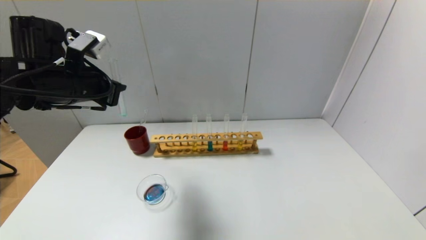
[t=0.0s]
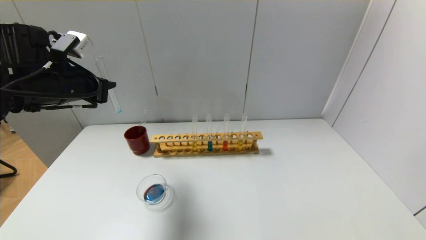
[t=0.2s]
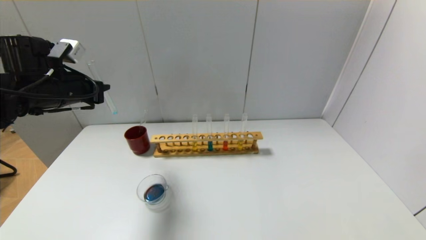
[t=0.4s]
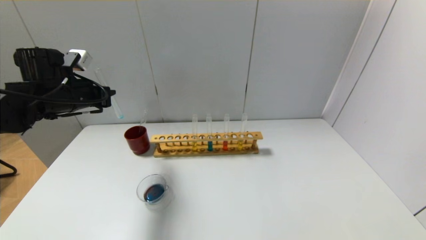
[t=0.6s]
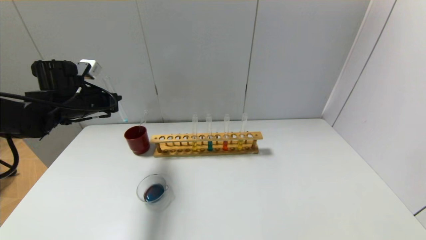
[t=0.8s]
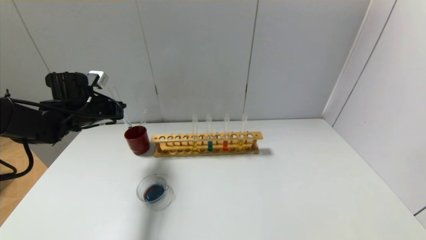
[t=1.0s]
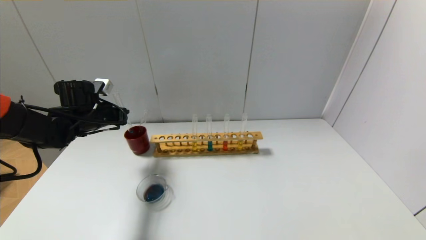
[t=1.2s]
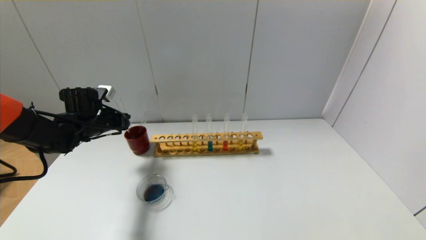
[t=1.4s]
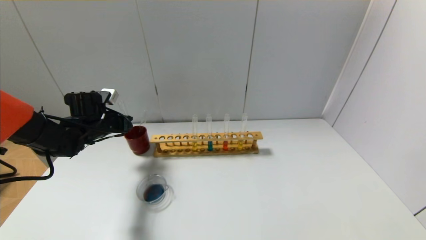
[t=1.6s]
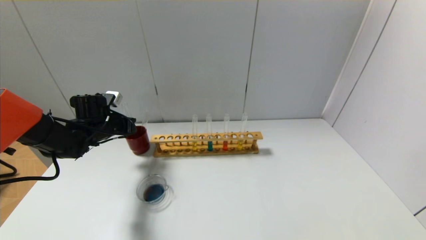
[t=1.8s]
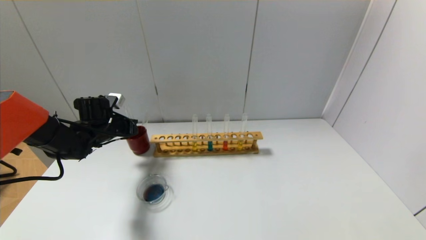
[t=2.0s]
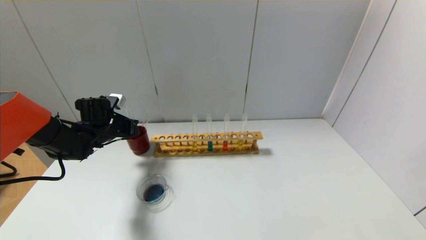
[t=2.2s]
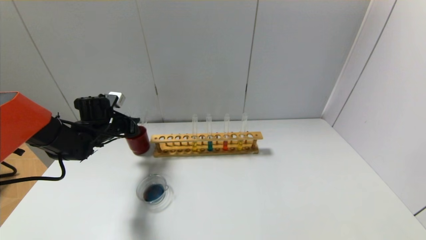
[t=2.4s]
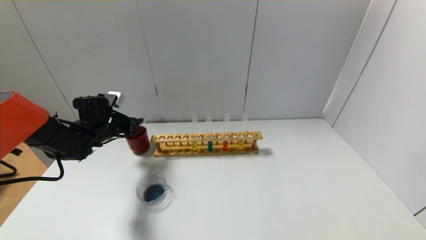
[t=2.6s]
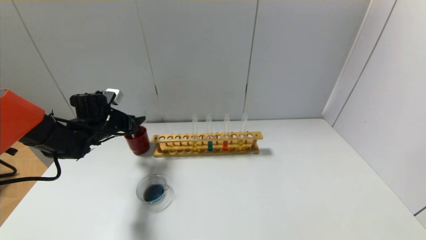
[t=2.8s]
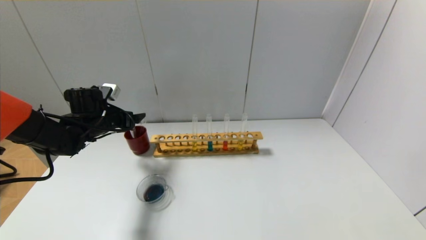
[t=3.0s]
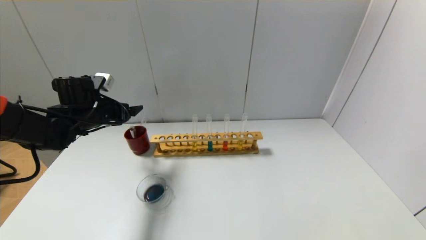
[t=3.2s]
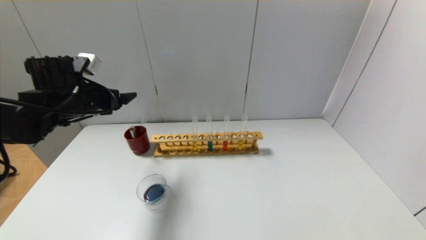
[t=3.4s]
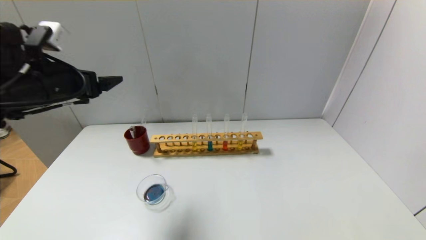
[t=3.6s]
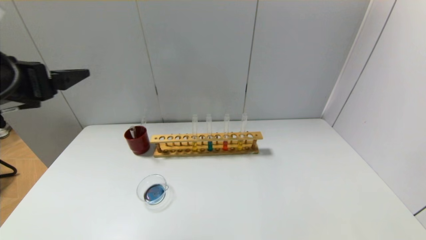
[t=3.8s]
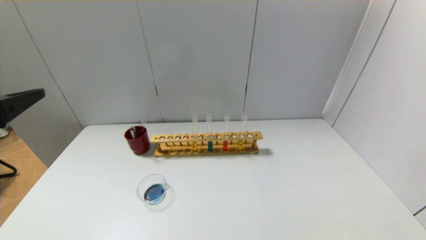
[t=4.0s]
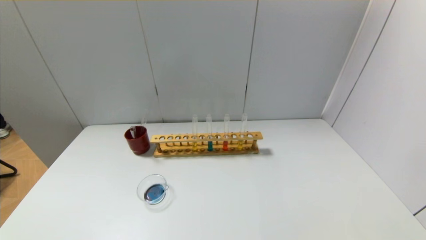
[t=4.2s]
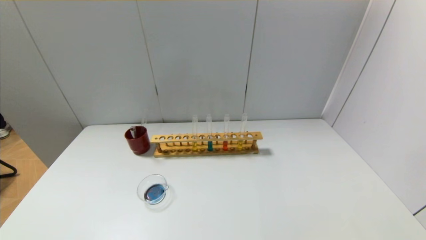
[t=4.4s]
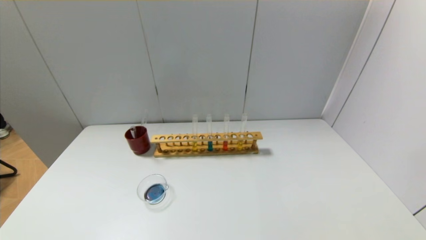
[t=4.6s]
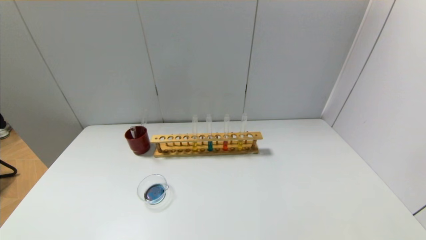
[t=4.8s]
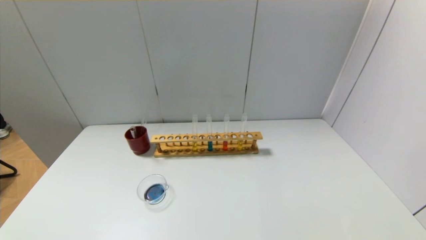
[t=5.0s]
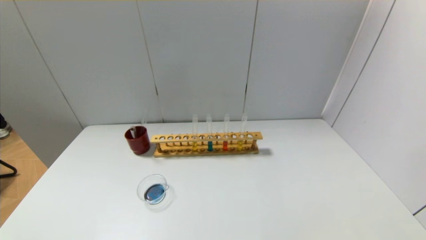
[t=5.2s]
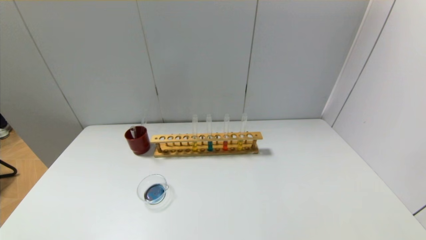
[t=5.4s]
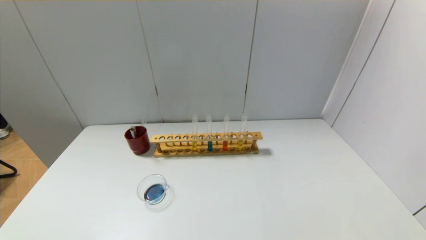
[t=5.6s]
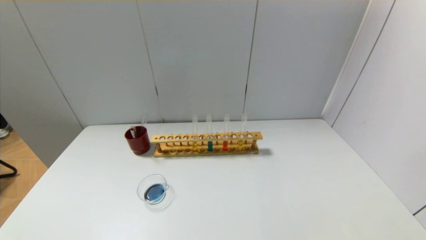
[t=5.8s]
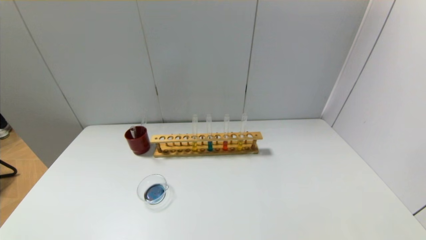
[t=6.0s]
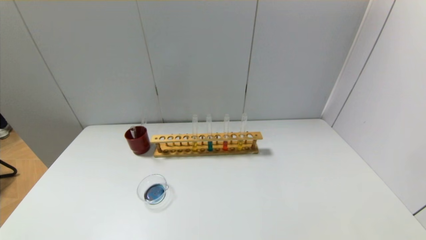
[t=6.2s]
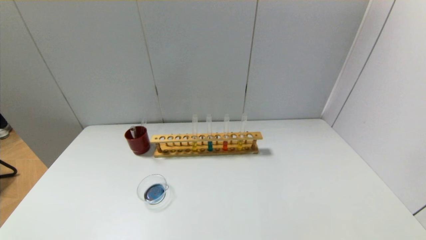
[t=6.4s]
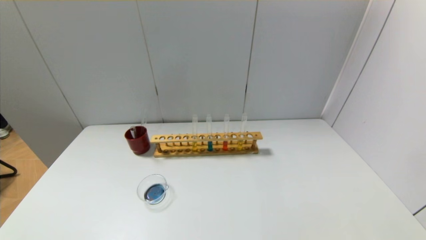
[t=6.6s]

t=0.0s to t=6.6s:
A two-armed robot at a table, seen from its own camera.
Step, t=0.0s to t=2.6s: Place the test tube into the brown cup with the left gripper.
t=0.0s to t=1.6s: The left gripper heads downward and forward, covering some 20 cm.
t=1.6s to t=3.2s: The left gripper opens its fingers.
t=3.2s to t=5.0s: The left gripper moves backward, approximately 40 cm.

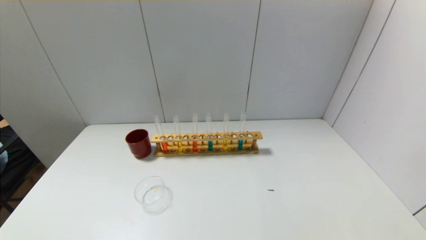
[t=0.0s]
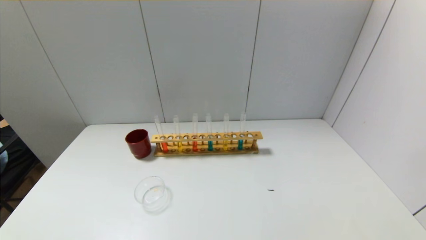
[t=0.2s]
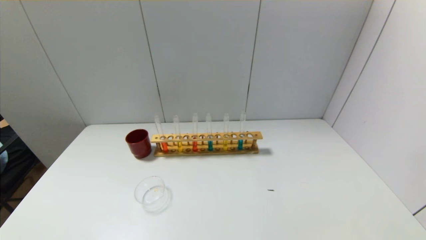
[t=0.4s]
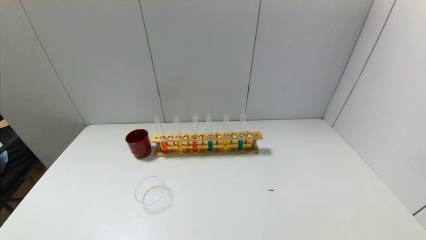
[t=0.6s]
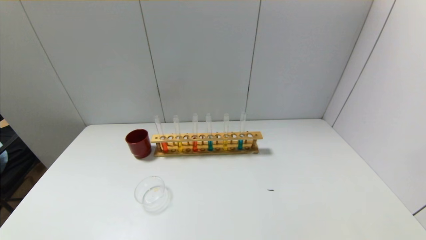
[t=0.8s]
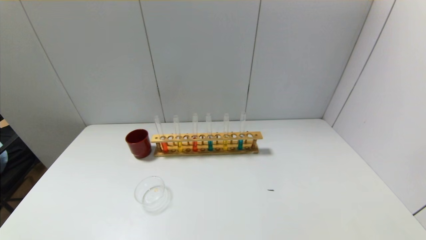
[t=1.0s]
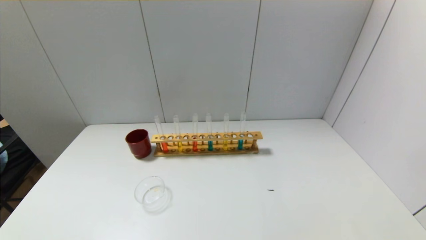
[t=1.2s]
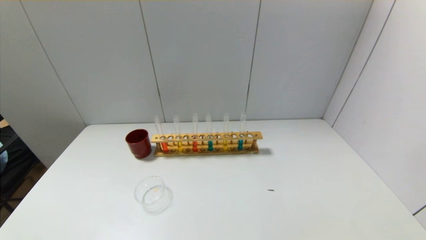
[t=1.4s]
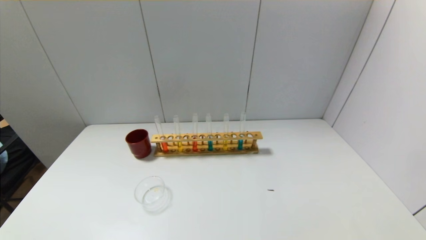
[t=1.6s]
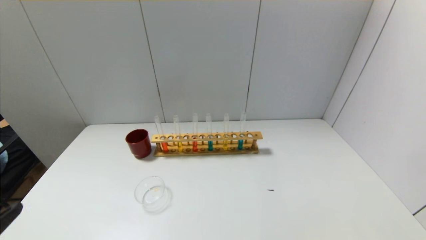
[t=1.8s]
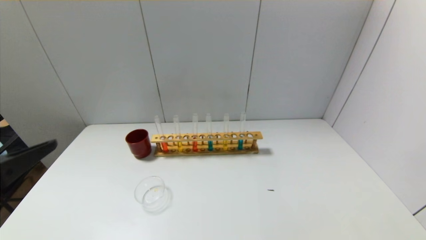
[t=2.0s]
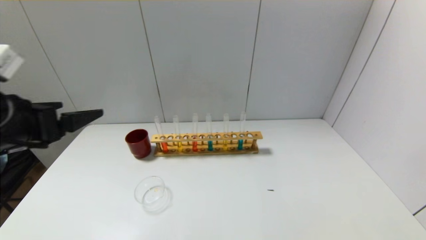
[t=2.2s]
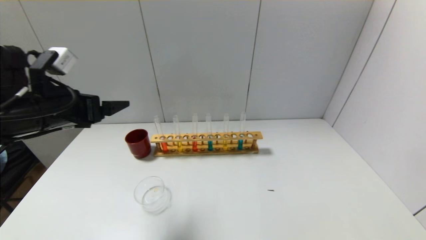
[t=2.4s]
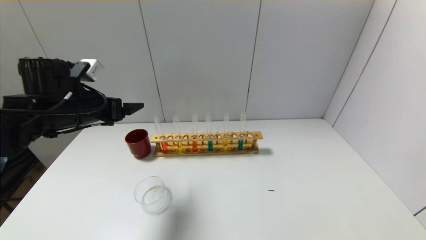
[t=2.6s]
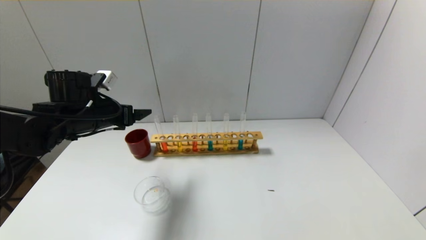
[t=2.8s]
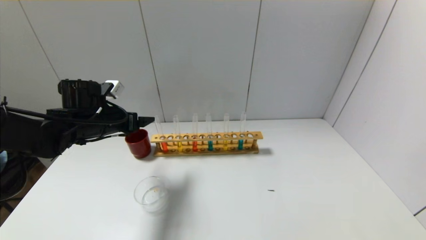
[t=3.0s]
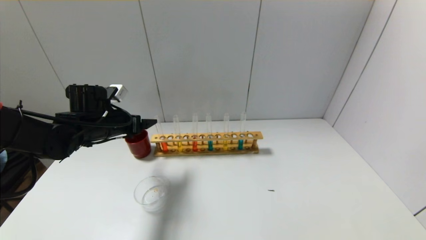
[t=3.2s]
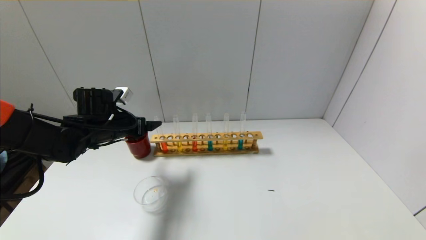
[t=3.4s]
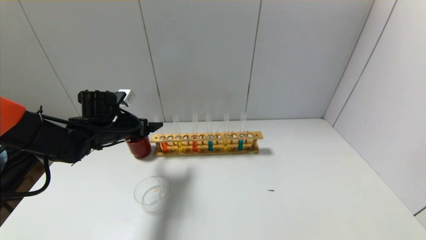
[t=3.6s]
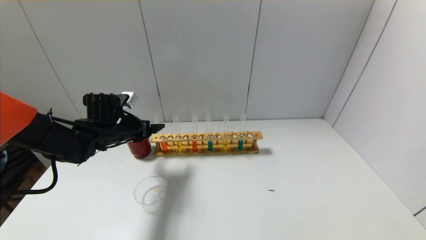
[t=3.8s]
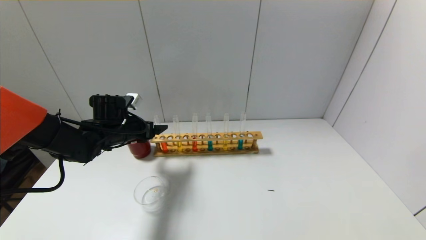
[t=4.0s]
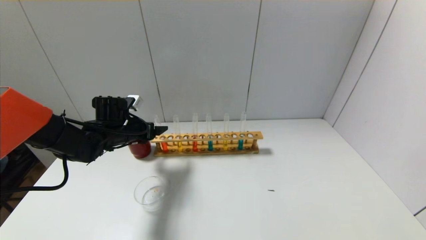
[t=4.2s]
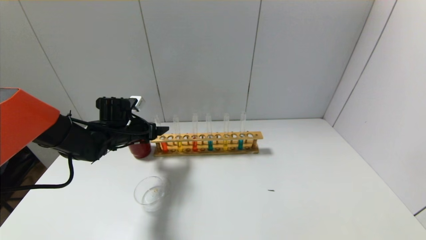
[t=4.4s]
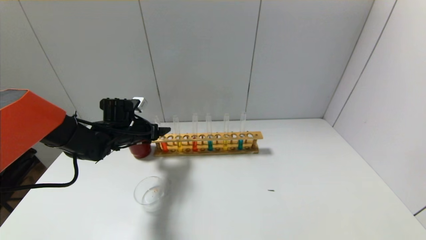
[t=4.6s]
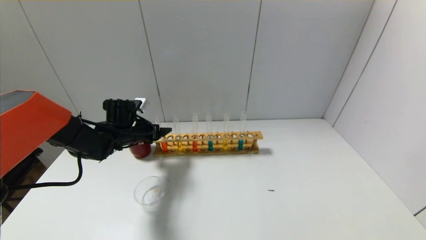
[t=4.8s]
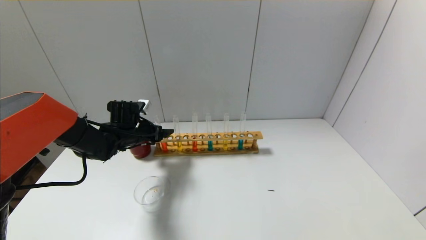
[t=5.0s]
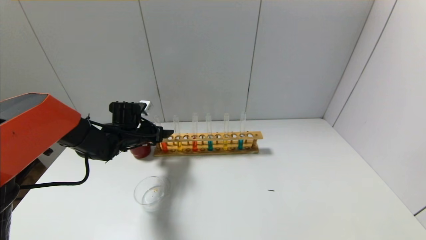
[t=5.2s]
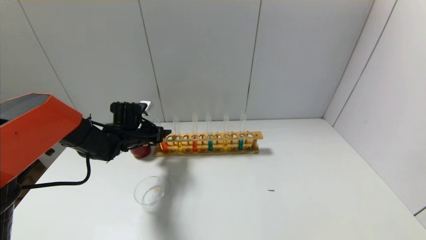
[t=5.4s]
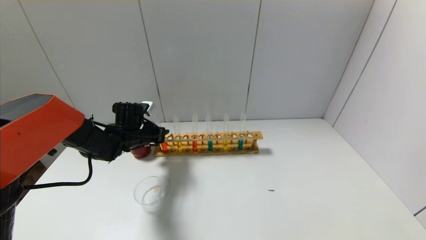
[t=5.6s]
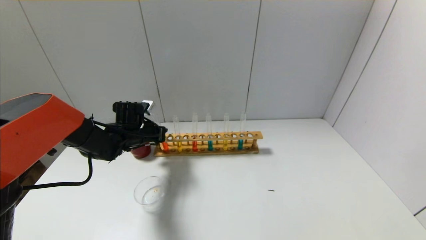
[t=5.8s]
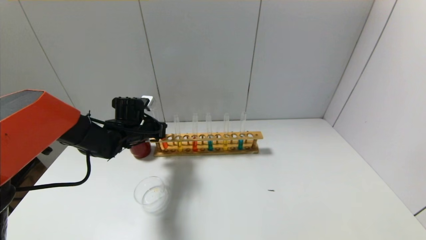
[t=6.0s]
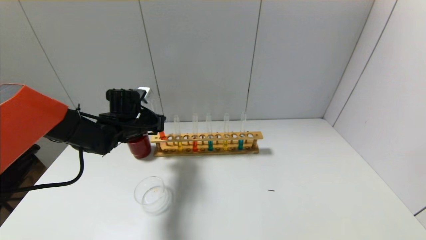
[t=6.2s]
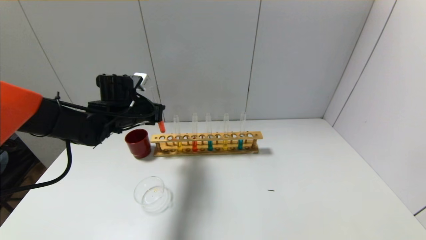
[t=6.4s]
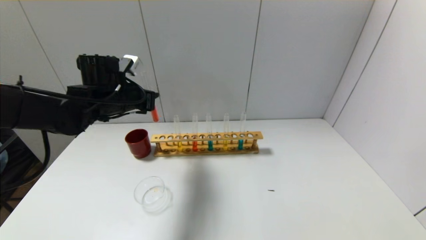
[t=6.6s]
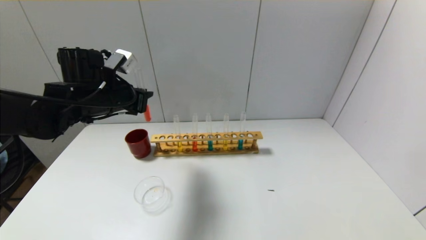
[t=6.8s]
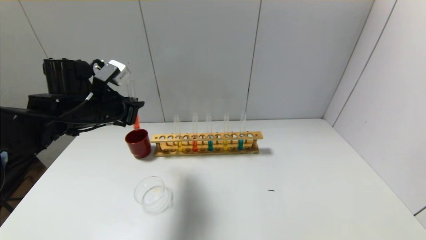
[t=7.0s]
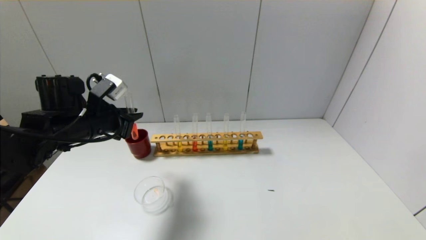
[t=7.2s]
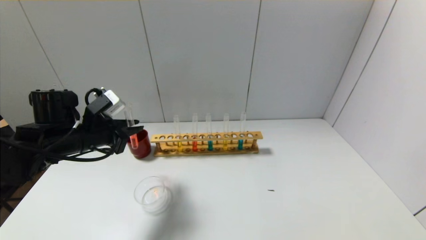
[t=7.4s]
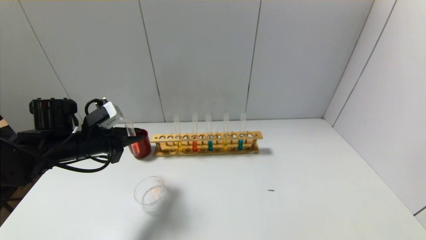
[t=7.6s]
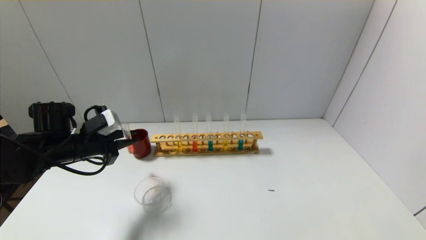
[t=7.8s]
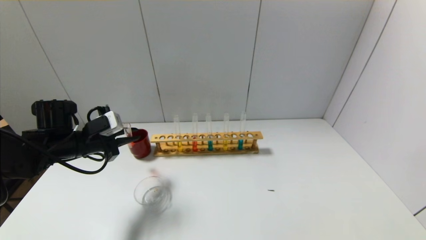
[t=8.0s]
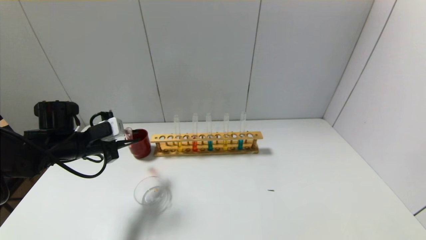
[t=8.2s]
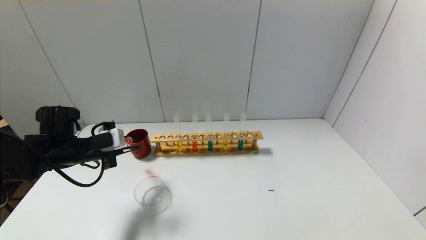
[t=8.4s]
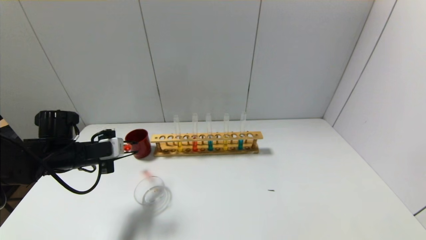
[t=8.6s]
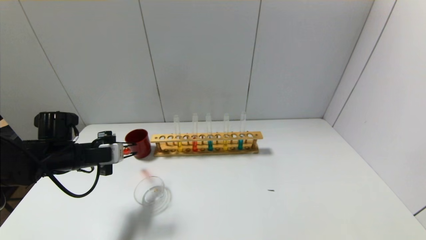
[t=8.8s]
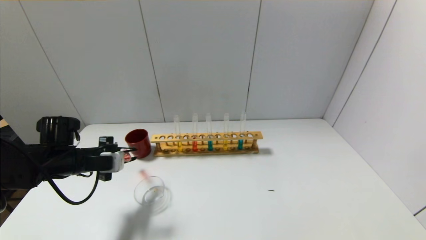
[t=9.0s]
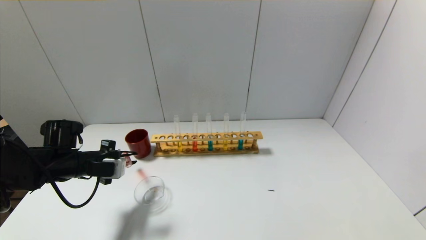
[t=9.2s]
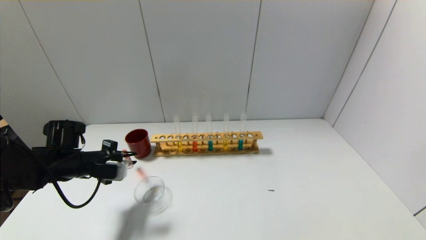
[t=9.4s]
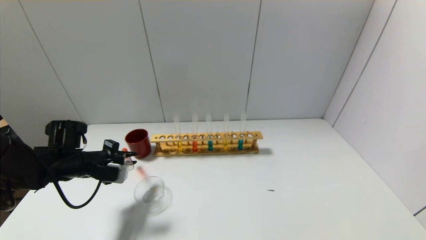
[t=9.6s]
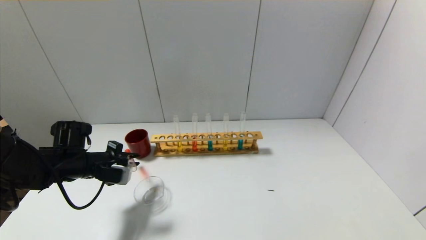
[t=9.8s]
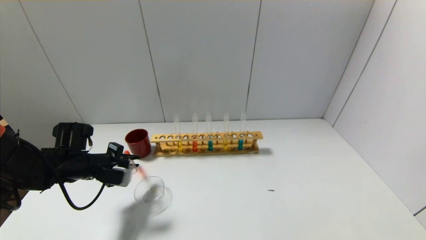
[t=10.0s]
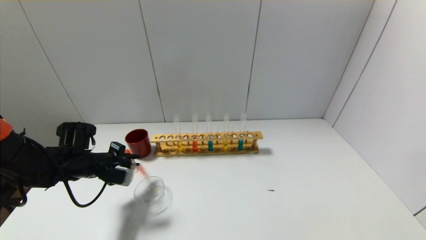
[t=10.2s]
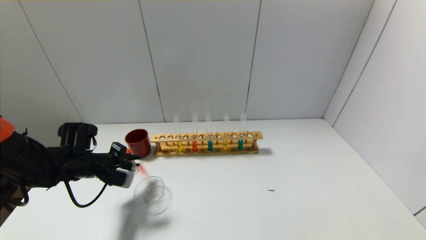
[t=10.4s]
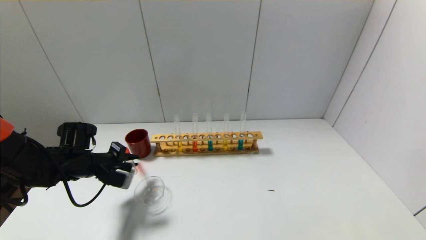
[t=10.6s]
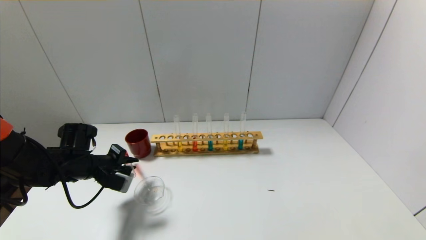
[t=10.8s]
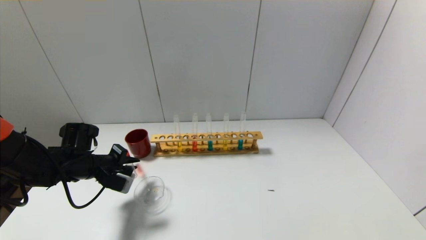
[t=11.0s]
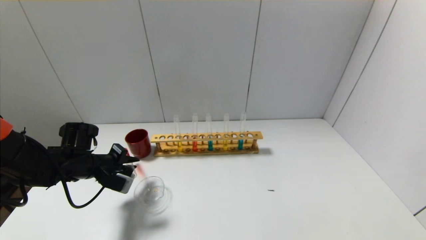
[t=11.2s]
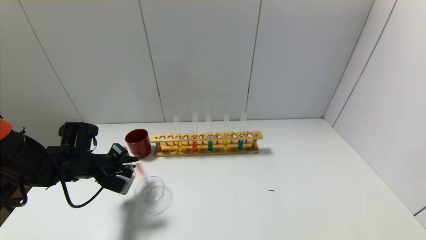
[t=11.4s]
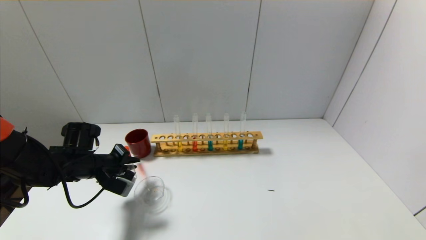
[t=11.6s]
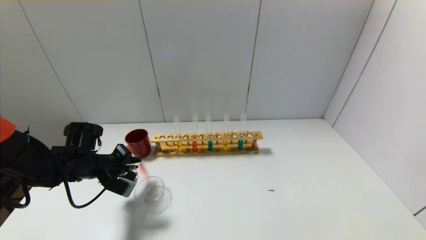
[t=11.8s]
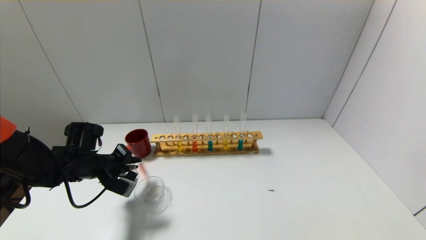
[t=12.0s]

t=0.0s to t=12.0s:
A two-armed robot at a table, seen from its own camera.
Step, t=0.0s to t=5.8s: Grasp the red reagent with the left gripper.
t=1.6s to t=3.0s: The left gripper travels forward by approximately 35 cm.
t=3.0s to t=4.4s: The left gripper is displaced downward by some 5 cm.
t=4.4s to t=6.0s: The left gripper closes.
t=6.0s to t=7.6s: The left gripper shifts approximately 15 cm backward and to the left, and travels upward and back again, roughly 15 cm each way.
t=7.6s to t=9.0s: The left gripper changes place by some 5 cm.
t=9.0s to t=10.4s: There are only small adjustments of the grippers.
t=10.4s to t=12.0s: The grippers make only small movements.
